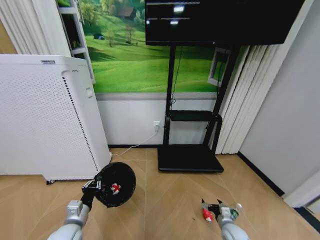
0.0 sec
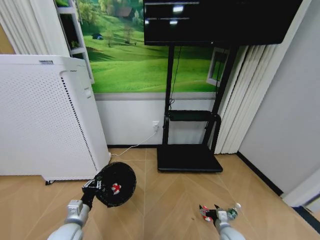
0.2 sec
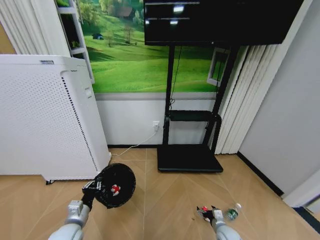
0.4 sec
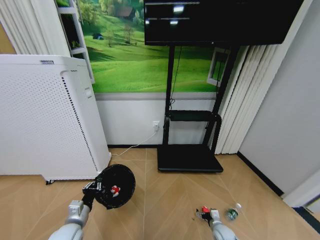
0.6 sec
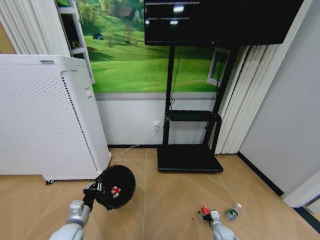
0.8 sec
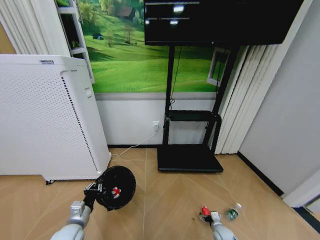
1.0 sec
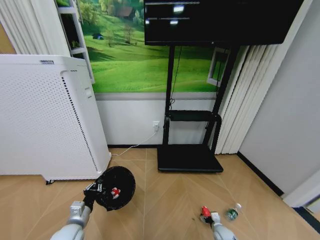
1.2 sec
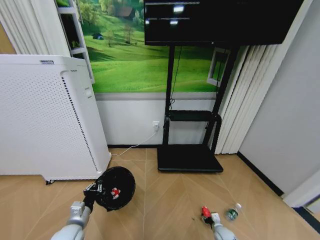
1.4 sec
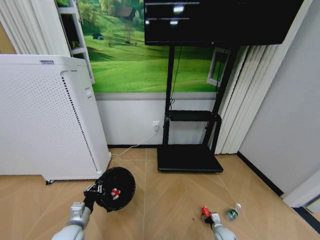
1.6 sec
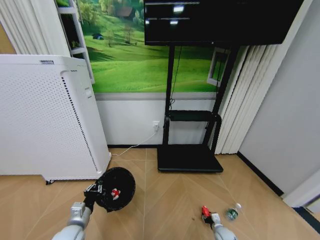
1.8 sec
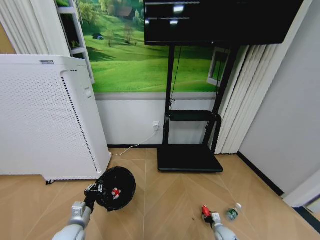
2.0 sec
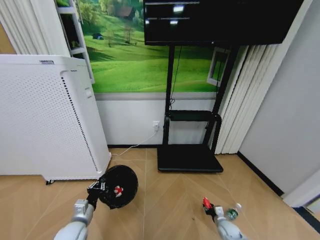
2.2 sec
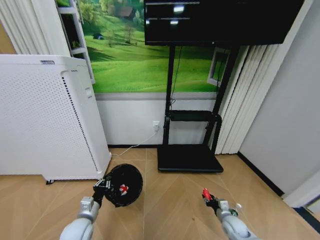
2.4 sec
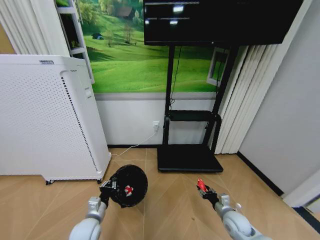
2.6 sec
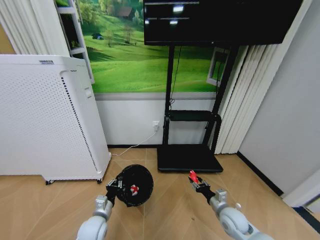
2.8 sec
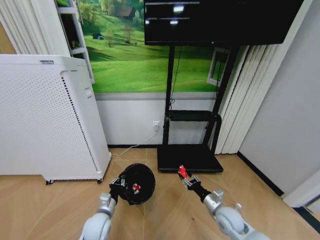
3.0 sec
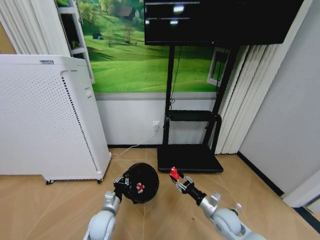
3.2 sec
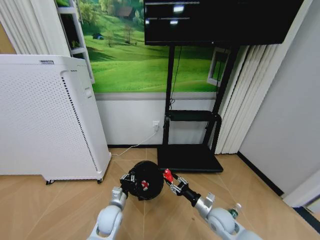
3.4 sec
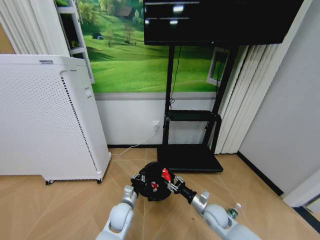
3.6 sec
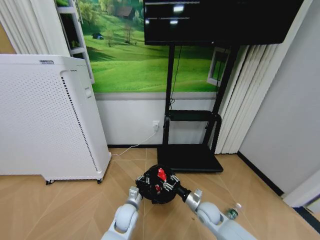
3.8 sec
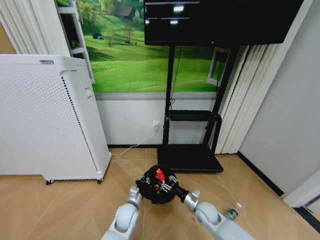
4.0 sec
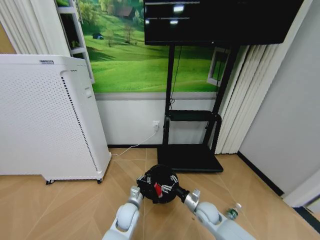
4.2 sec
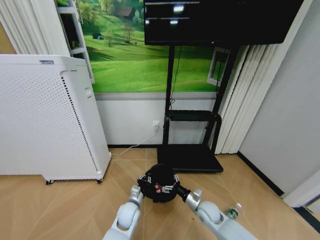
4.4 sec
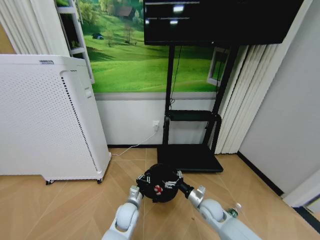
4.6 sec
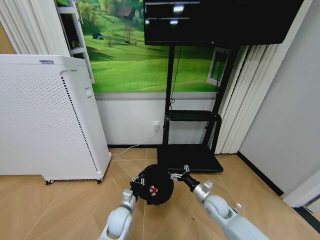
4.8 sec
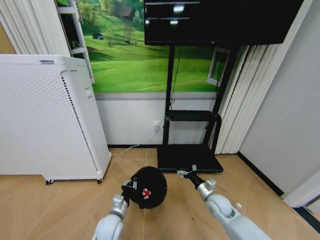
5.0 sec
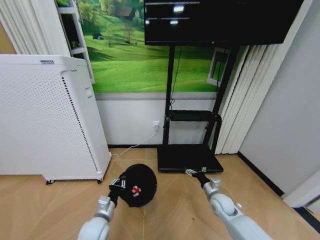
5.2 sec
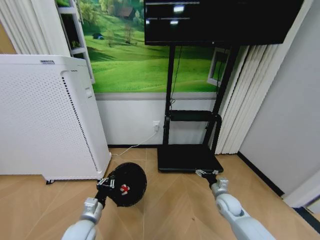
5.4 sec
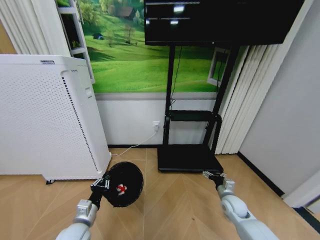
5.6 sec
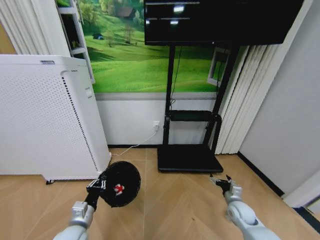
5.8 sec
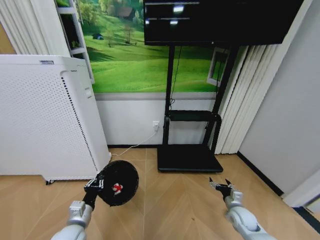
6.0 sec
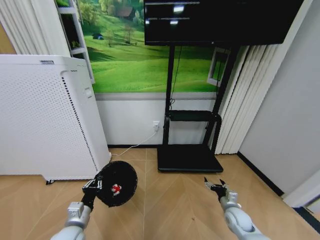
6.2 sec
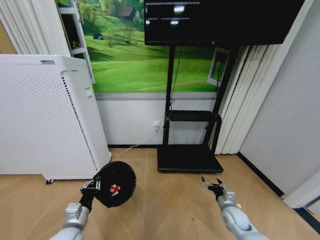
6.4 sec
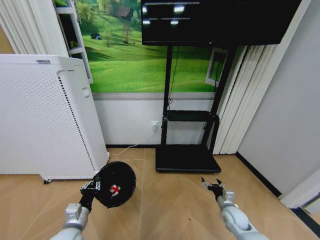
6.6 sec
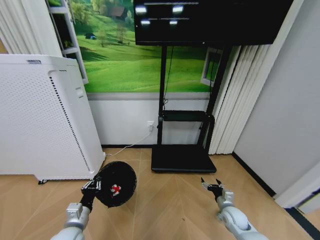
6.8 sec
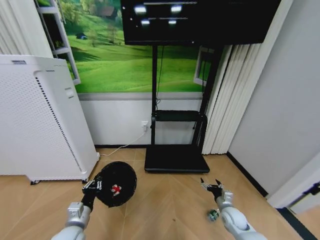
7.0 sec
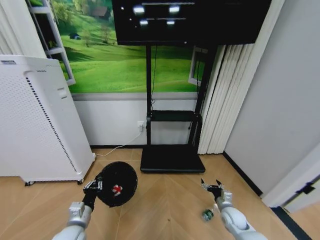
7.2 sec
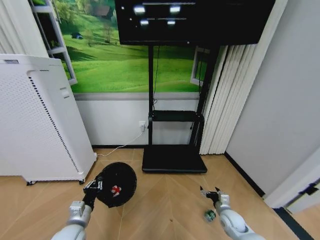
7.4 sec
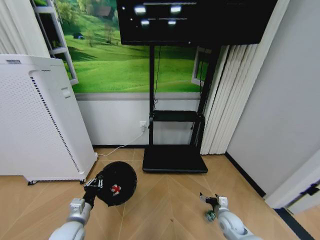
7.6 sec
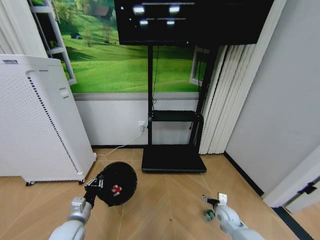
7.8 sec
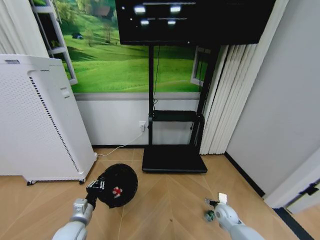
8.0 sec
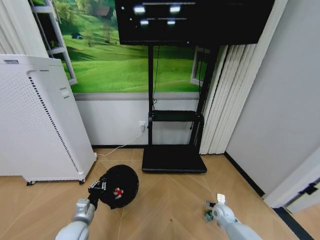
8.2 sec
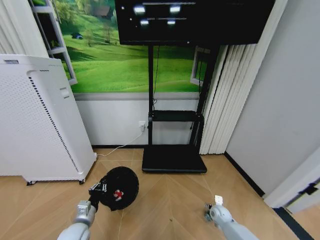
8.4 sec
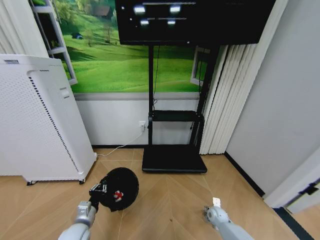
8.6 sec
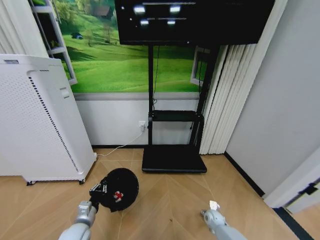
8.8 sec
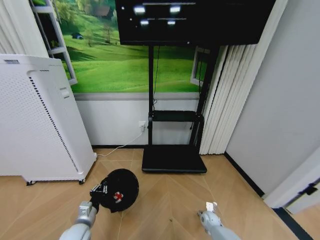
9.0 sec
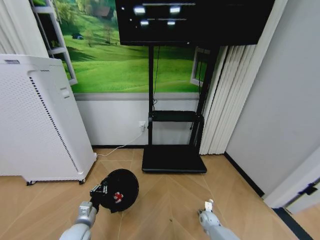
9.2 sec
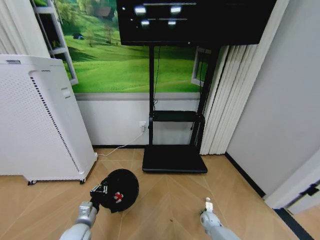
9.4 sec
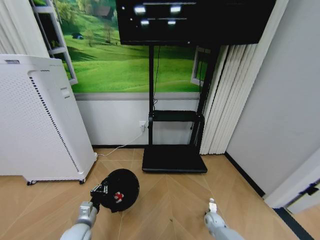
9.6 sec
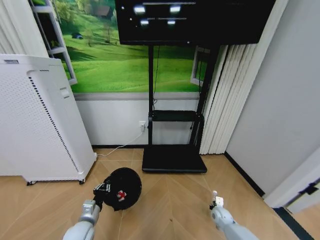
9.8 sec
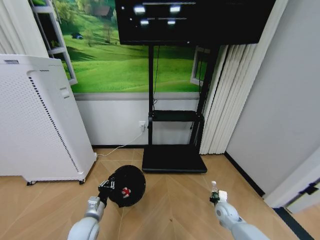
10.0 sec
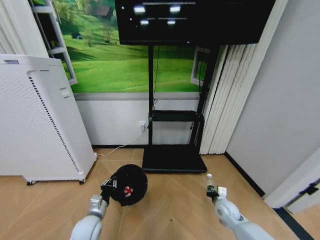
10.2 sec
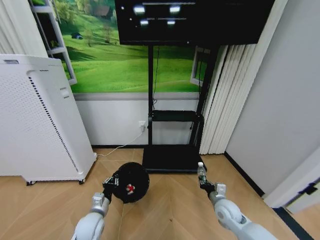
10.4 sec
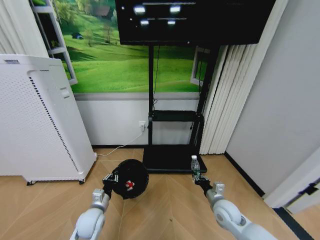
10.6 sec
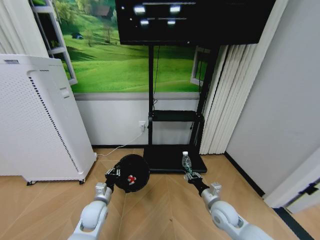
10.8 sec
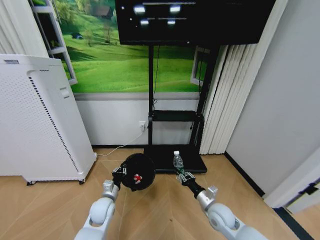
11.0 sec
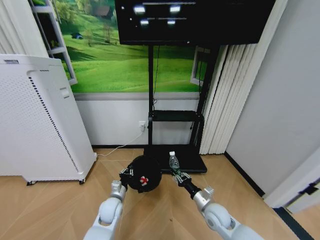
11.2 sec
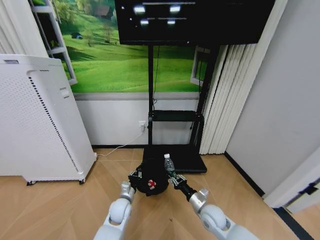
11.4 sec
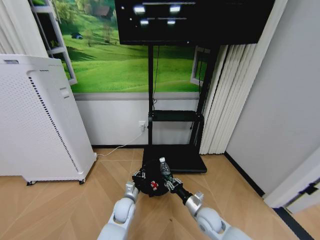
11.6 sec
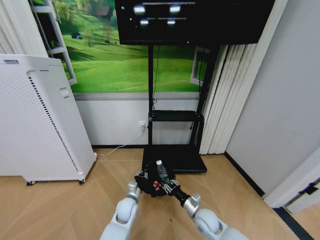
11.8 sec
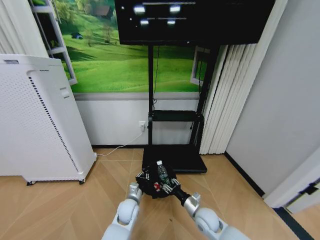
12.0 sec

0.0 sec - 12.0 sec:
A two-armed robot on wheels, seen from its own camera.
Task of the whole recording: Pick up the trash bin and place the garbage on the floor into it.
0.0 sec - 1.6 sec: The right gripper moves downward, about 10 cm, and closes up.
1.6 sec - 3.0 sec: The left gripper moves to the right, approximately 10 cm, while the right gripper travels upward by roughly 20 cm.
3.0 sec - 4.4 sec: The right gripper heads to the left, covering roughly 5 cm, and opens. Meanwhile the left gripper heads to the right, covering about 10 cm.
4.4 sec - 6.0 sec: The left gripper shifts approximately 20 cm to the left, backward and upward; the right gripper heads to the right, covering approximately 15 cm.
6.0 sec - 7.6 sec: The right gripper ends up about 5 cm from where it was.
7.6 sec - 9.0 sec: The right gripper shifts some 15 cm downward.
9.0 sec - 10.4 sec: The right gripper is displaced upward by approximately 20 cm, and closes its fingers. Meanwhile the left gripper changes place by some 5 cm.
10.4 sec - 12.0 sec: The left gripper heads to the right and forward, covering about 15 cm; the right gripper heads to the left, covering roughly 10 cm.

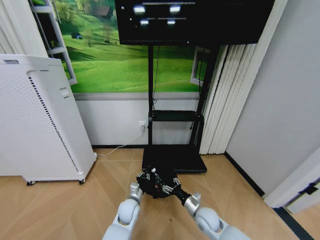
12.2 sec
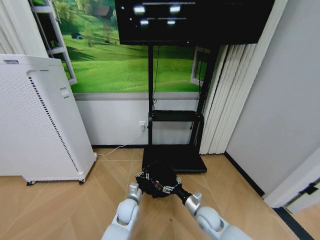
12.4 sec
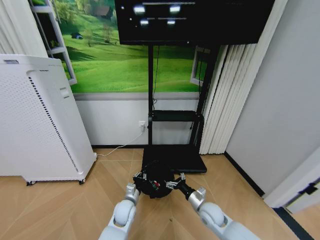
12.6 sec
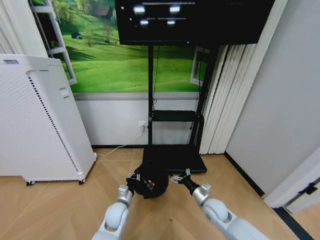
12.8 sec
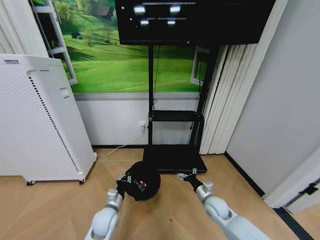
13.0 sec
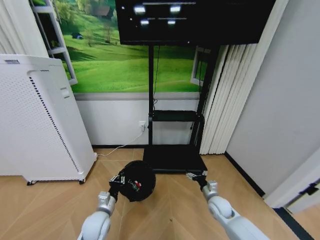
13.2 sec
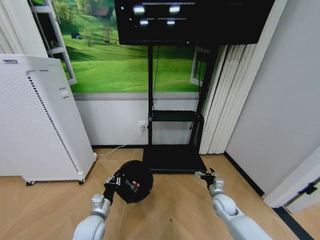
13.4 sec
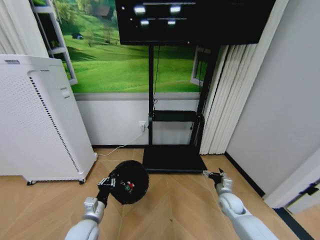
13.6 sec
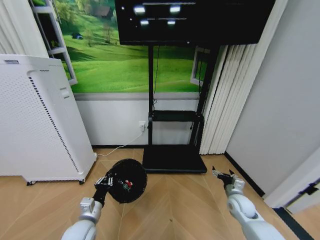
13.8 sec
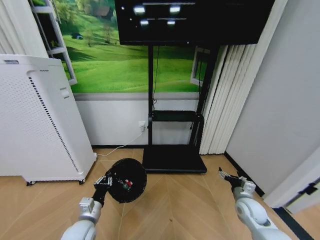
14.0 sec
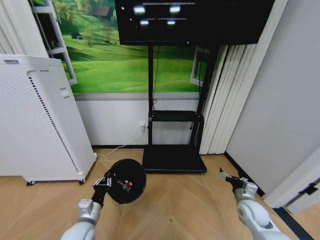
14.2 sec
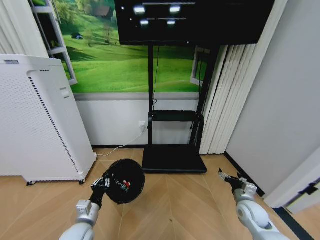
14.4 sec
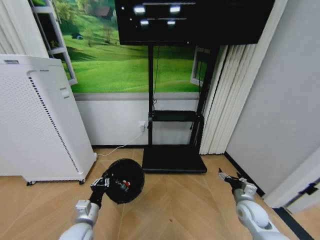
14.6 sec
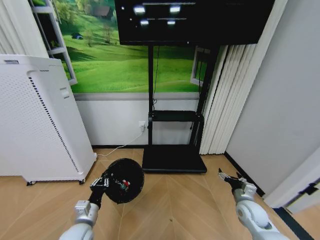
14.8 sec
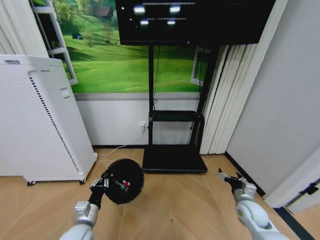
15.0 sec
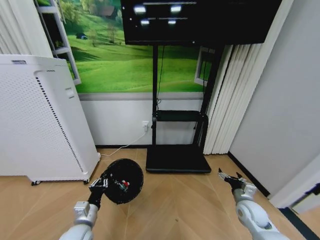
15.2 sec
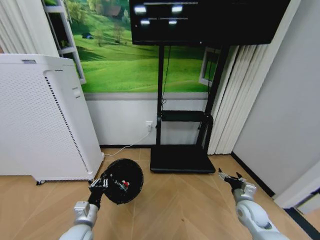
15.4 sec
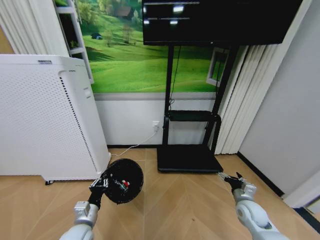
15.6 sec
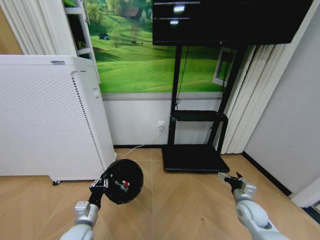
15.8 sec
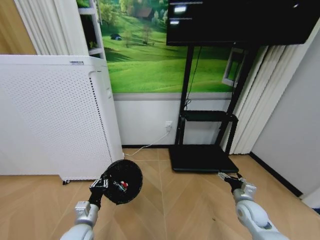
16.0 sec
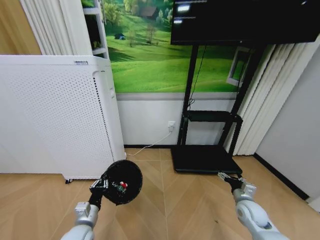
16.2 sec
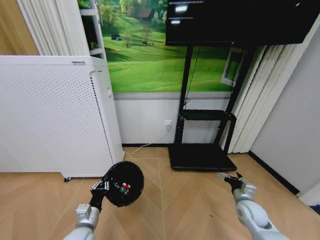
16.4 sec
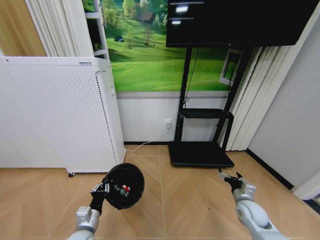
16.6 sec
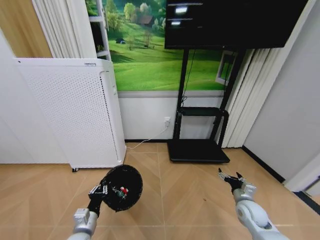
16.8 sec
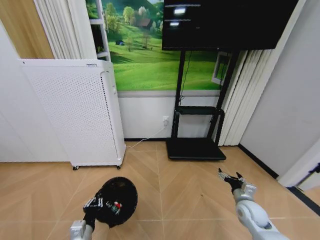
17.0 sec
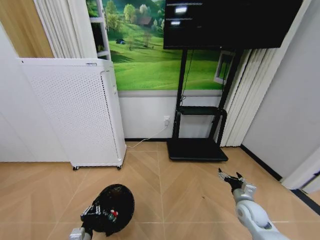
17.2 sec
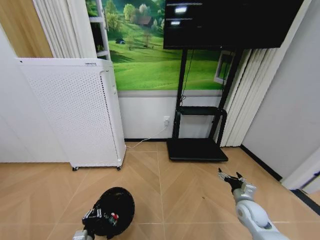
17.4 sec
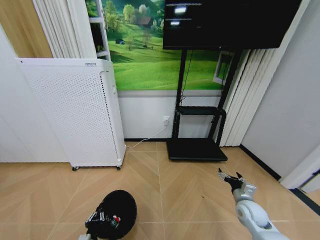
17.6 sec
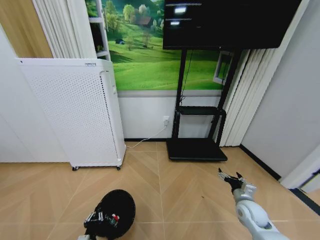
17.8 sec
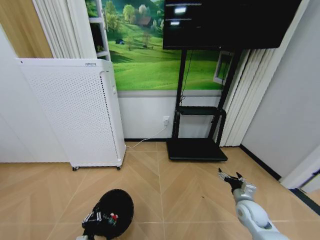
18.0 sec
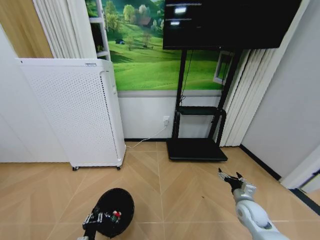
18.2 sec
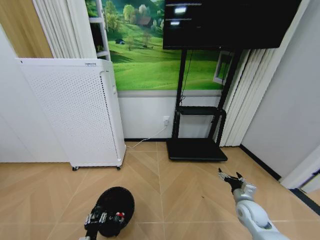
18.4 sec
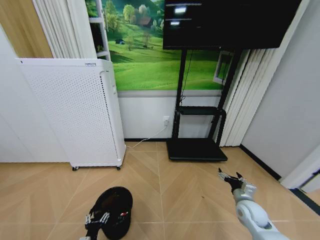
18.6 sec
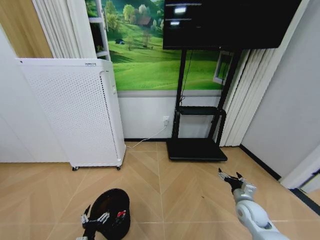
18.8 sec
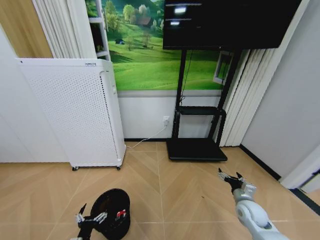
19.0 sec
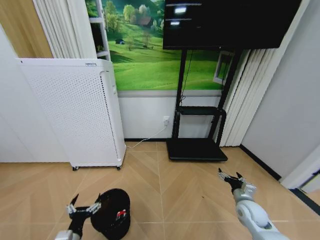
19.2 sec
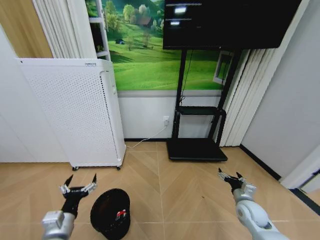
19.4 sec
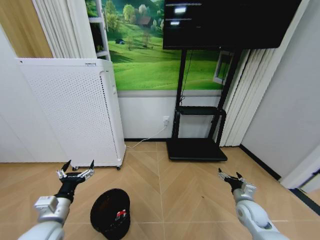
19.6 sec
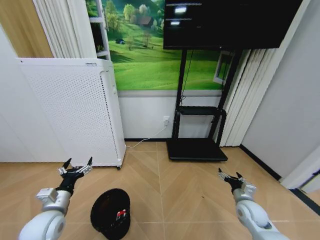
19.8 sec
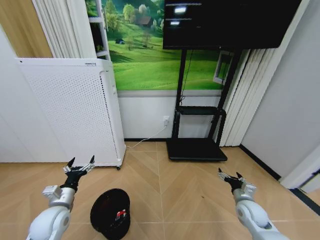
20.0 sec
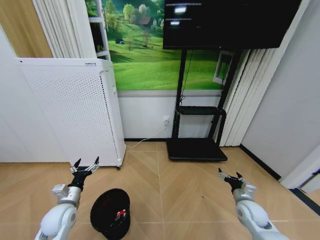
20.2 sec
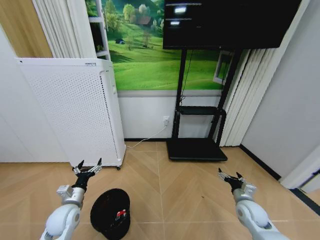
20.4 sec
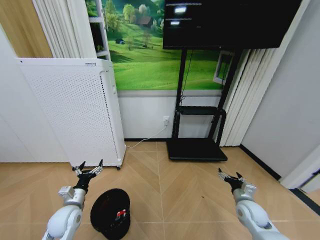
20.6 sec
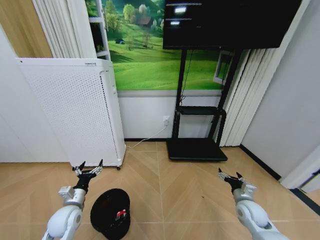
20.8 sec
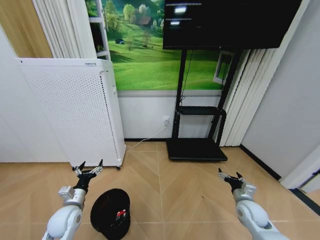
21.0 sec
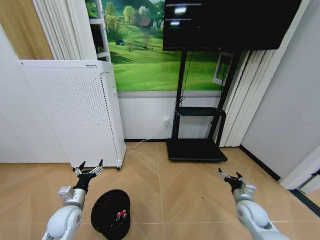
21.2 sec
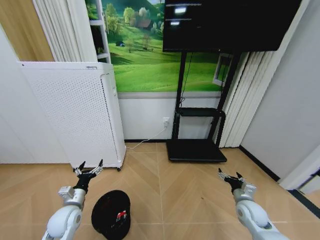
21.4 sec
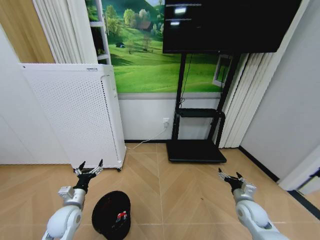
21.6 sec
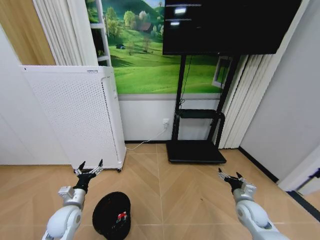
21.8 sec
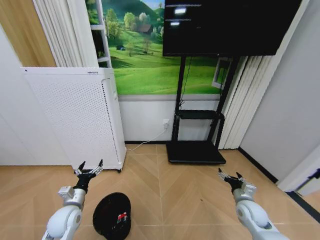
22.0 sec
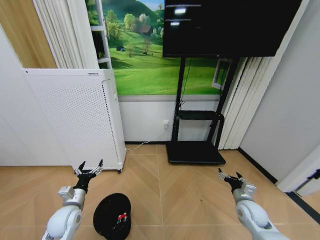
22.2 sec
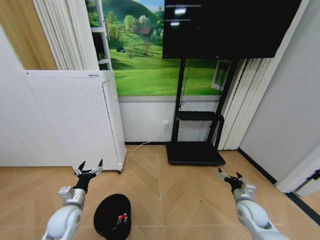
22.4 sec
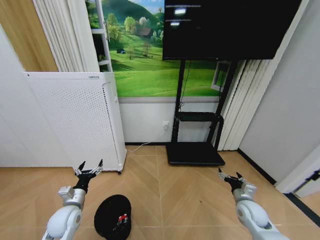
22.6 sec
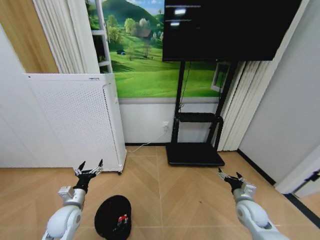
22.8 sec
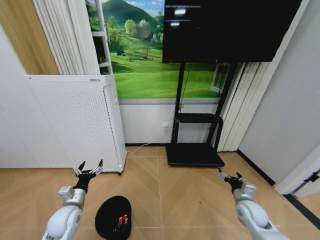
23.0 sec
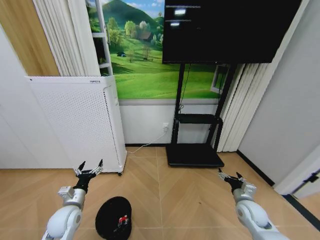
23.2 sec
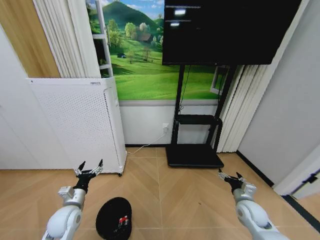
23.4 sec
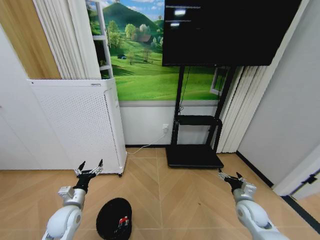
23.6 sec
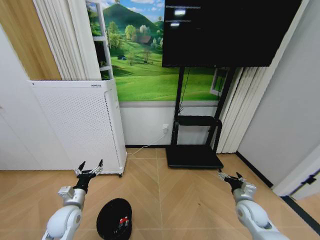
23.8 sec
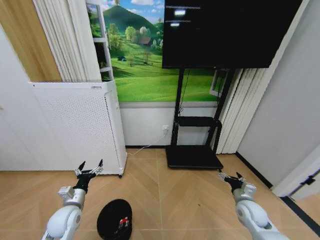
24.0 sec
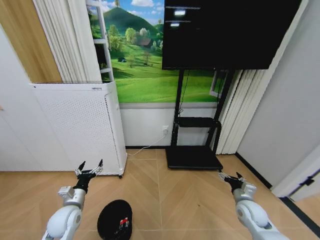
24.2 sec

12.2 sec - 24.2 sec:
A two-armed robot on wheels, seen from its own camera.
Task of the whole recording: Pick up the trash bin and place the garbage on the floor into it.
12.2 sec - 13.8 sec: The right gripper is displaced to the right by approximately 15 cm, and opens up. The left gripper travels to the left, backward and upward by about 20 cm.
13.8 sec - 15.2 sec: There are only small adjustments of the grippers.
16.6 sec - 18.2 sec: The left gripper is displaced downward and backward by roughly 15 cm.
18.2 sec - 19.8 sec: The left gripper is displaced upward, forward and to the left by roughly 25 cm, and opens its fingers.
19.8 sec - 21.2 sec: The left gripper shifts about 5 cm downward.
21.2 sec - 24.2 sec: The two grippers keep their place.
